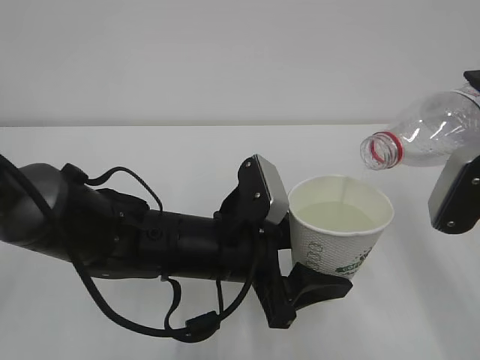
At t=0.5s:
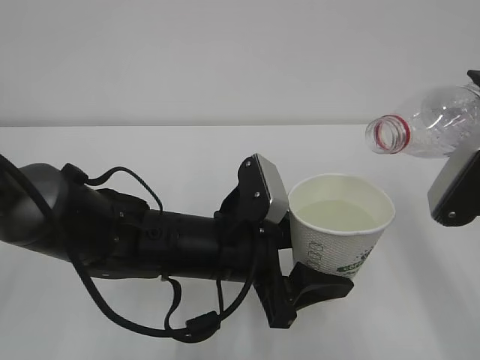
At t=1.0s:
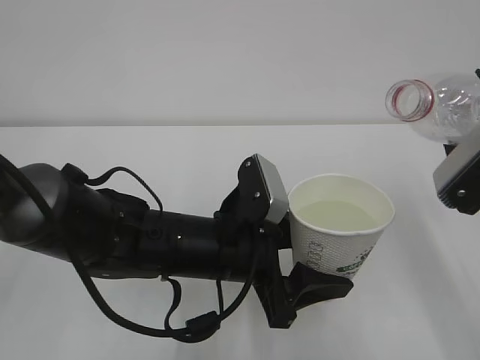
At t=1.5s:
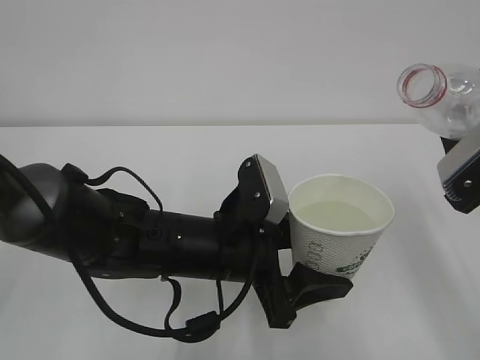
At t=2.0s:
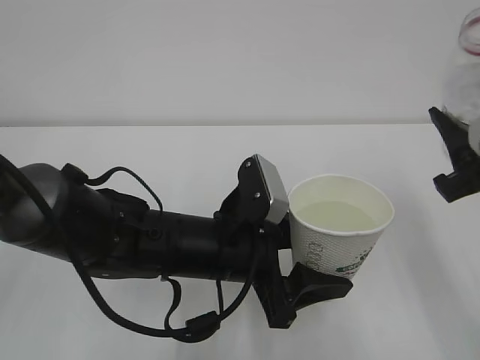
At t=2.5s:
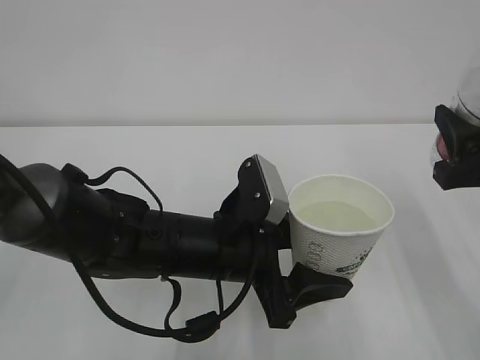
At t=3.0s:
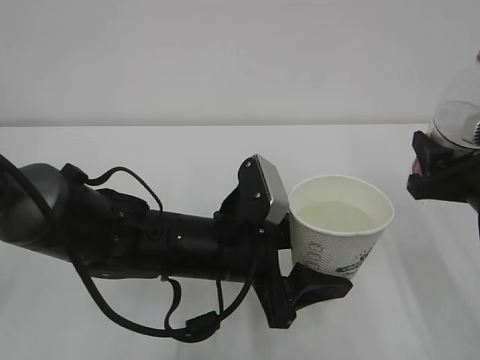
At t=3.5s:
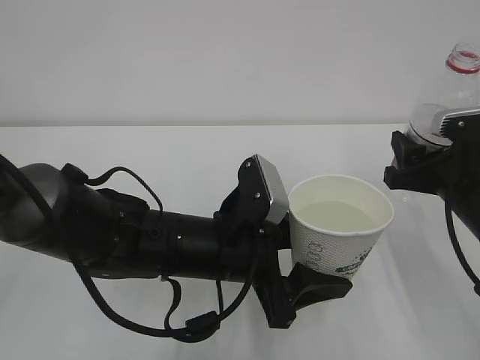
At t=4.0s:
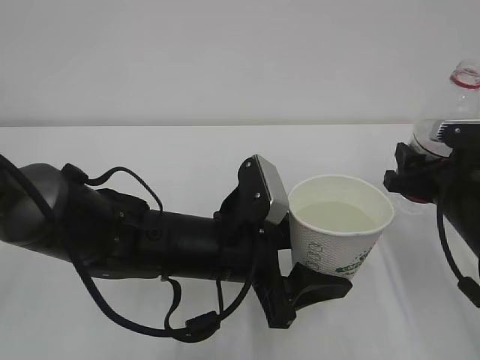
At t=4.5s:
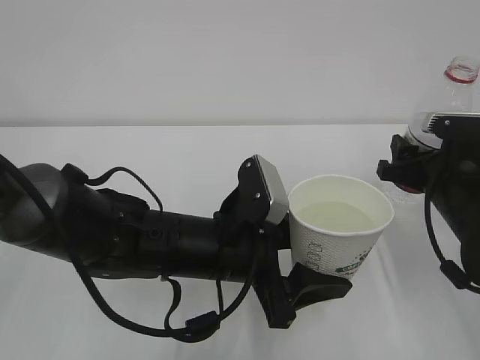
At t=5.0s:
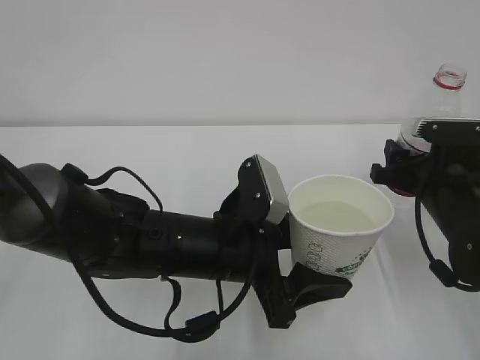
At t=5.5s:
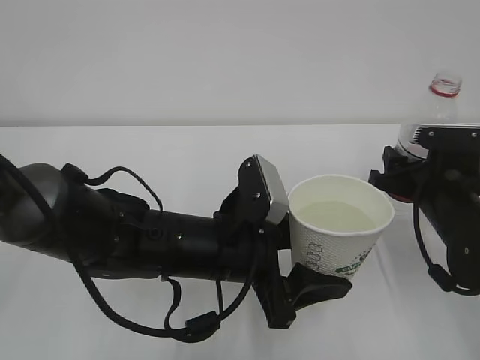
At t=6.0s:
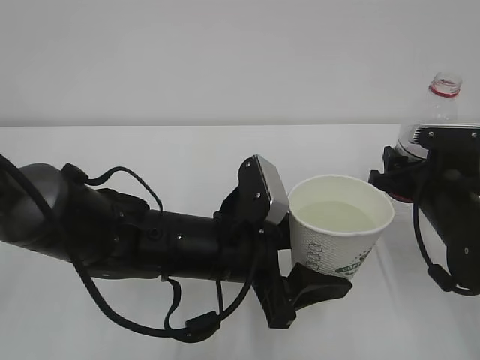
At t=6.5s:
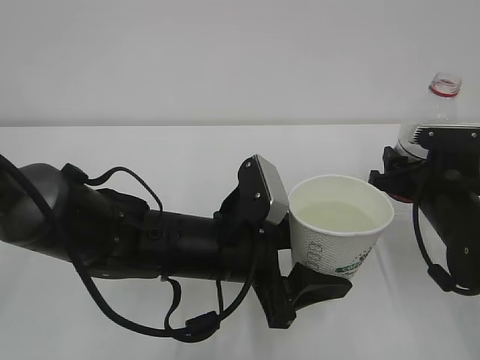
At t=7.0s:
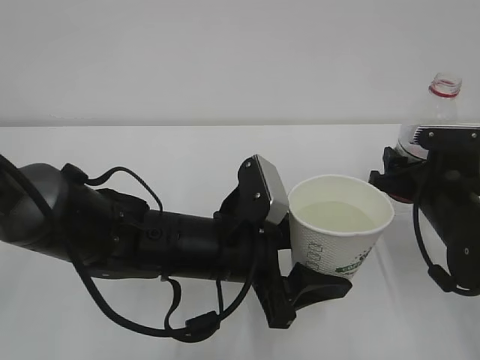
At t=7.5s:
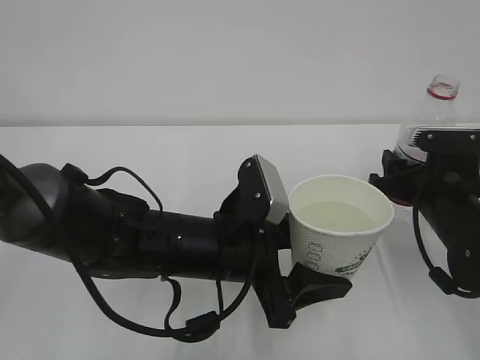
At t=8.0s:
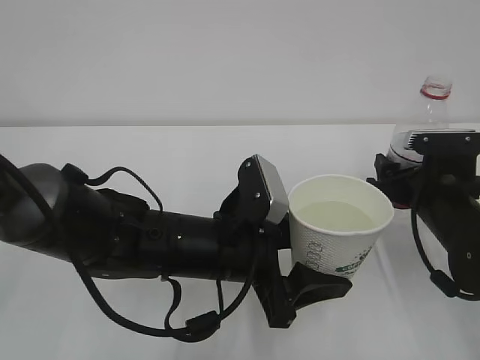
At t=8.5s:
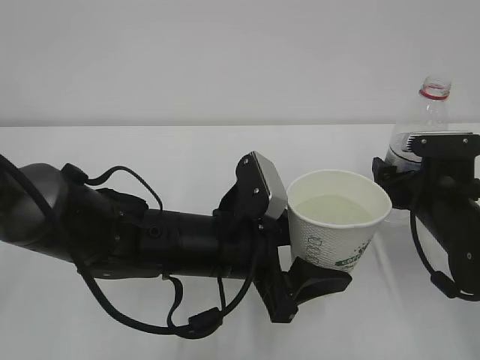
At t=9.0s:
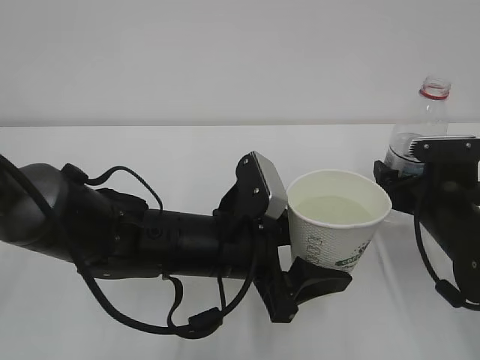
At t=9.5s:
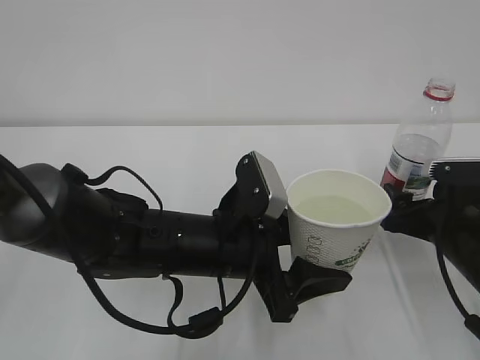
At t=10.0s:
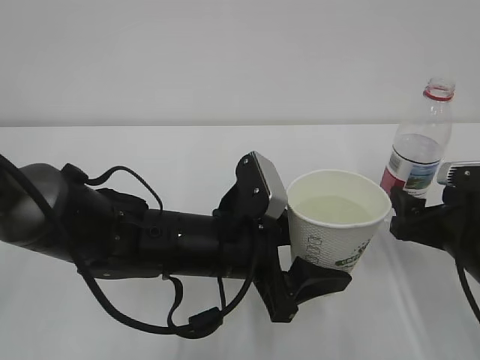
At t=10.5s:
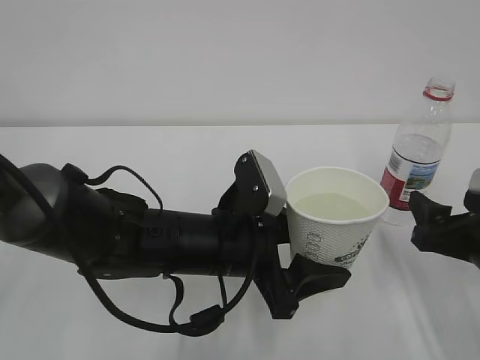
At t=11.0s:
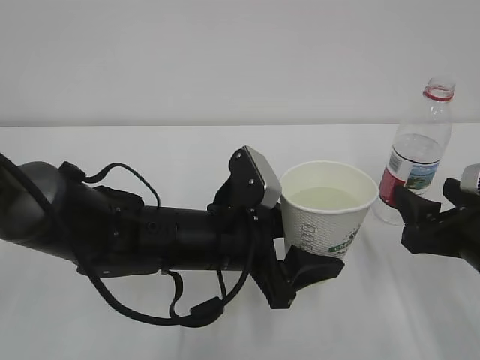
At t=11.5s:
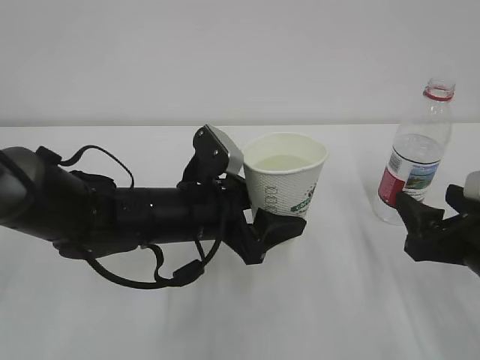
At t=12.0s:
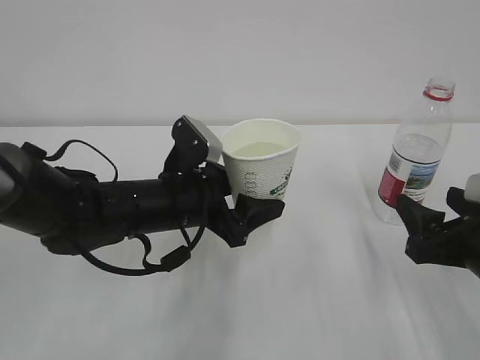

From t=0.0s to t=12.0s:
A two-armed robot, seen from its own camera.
From t=2.0s to t=4.0s: The right gripper goes roughly 10 cm downward and forward.
From t=4.0s to t=6.0s: There are only small adjustments of the grippers.
From t=6.0s to t=8.0s: The right gripper opens.
From t=8.0s to t=10.0s: The right gripper shifts about 5 cm backward.
From t=10.0s to t=12.0s: The left gripper heads forward and to the left, covering roughly 10 cm.

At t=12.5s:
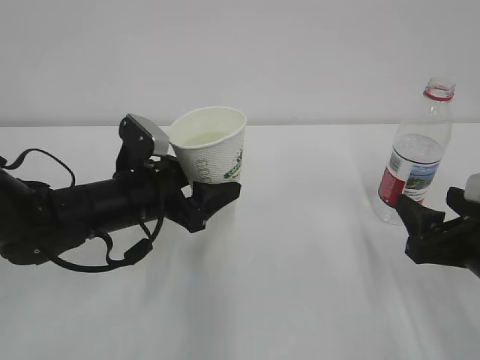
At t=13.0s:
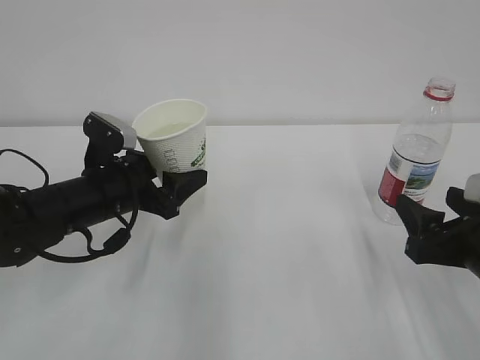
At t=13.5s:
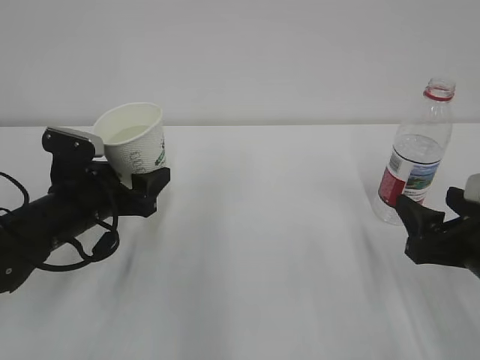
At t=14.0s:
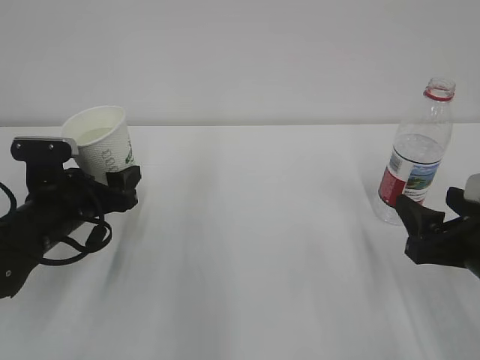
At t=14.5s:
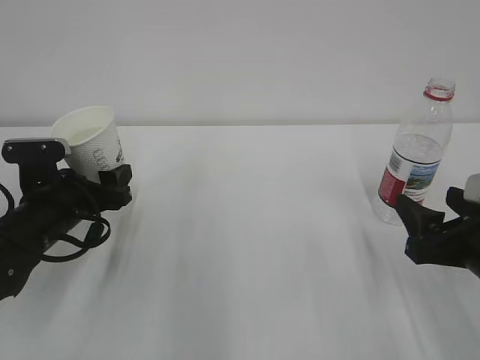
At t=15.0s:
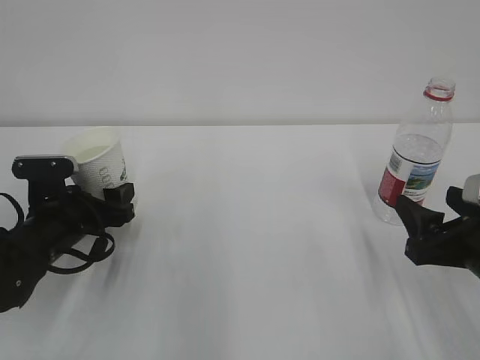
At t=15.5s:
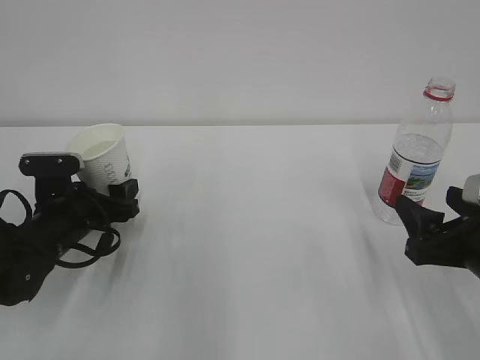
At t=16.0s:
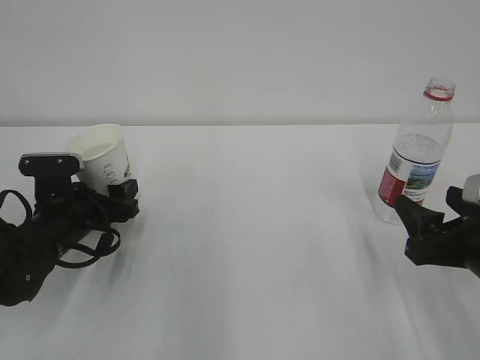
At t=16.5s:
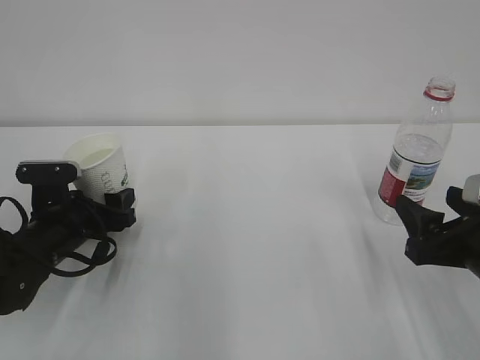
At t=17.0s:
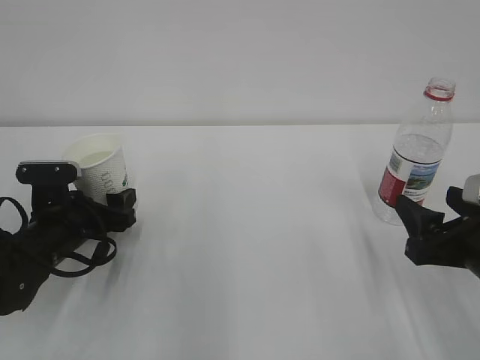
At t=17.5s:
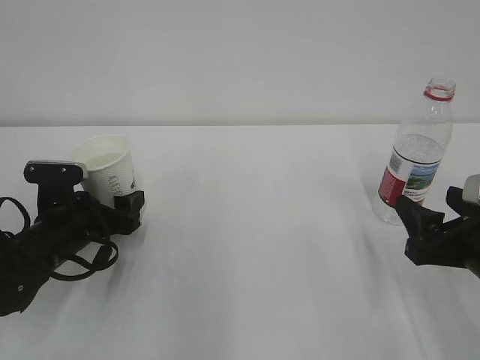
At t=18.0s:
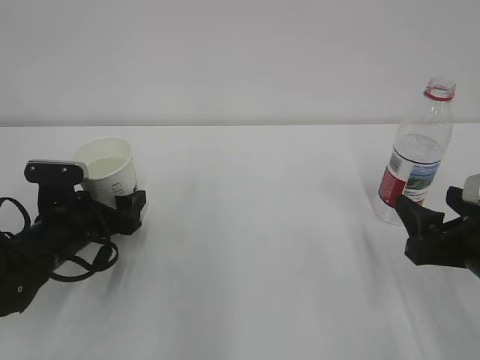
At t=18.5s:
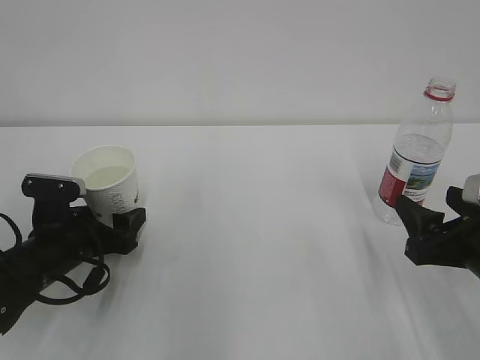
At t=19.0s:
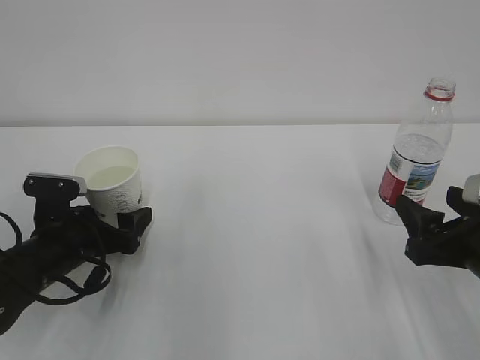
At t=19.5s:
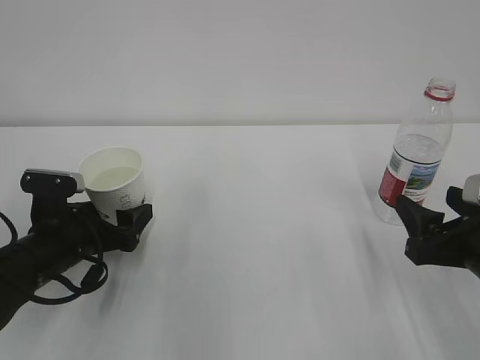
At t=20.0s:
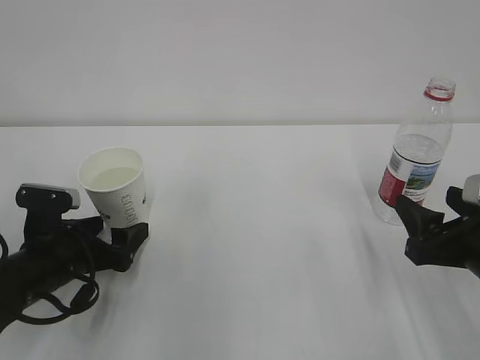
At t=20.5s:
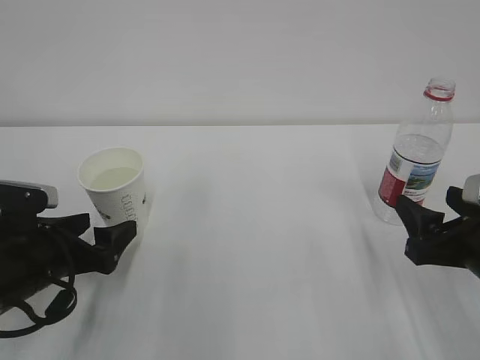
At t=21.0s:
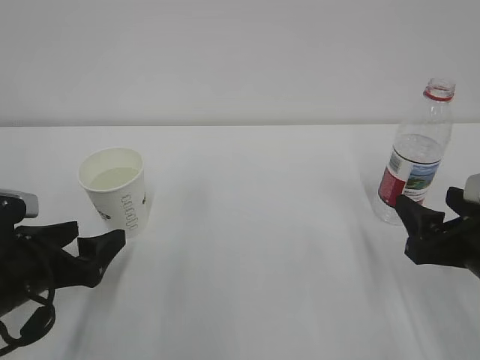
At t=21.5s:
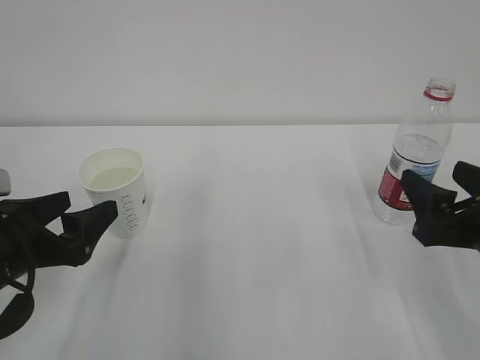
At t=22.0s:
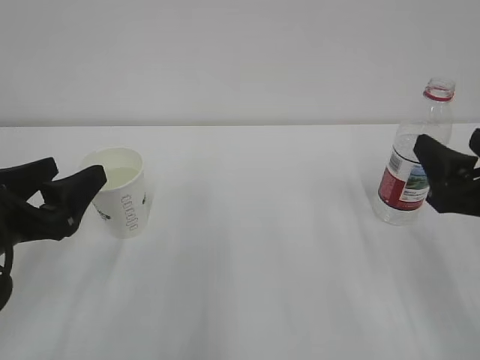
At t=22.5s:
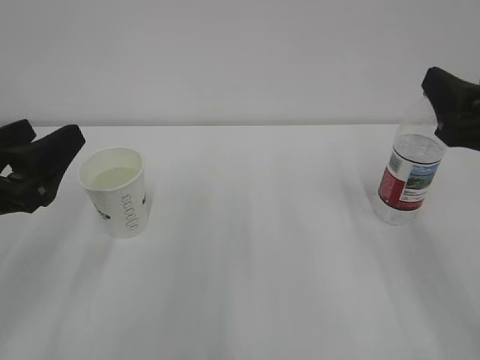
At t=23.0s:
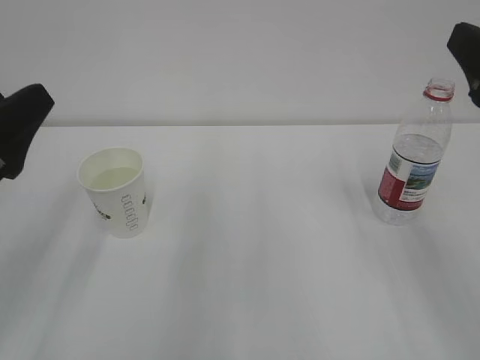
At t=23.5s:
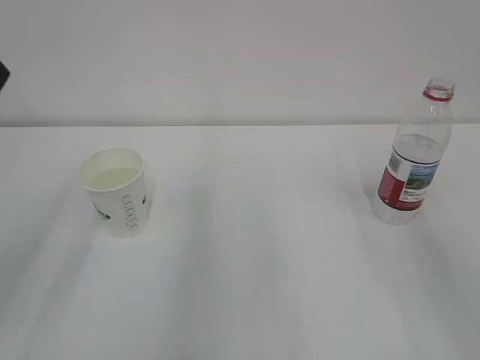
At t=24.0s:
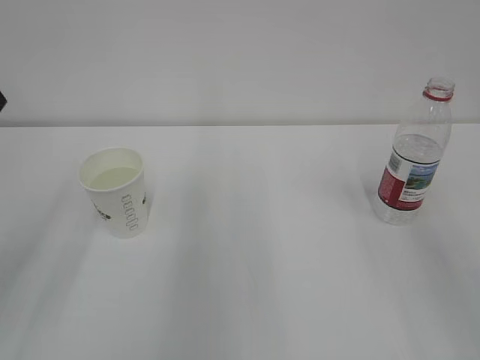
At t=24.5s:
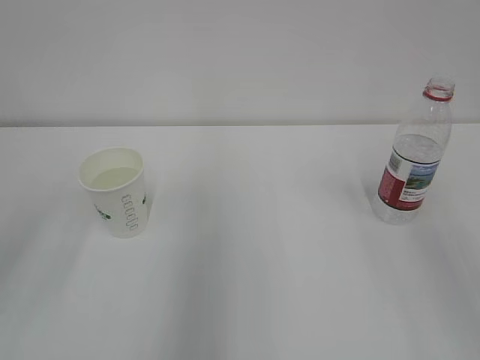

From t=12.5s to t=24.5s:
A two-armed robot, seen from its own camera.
From t=12.5s to t=14.5s: The left gripper heads to the left, covering roughly 10 cm.
From t=14.5s to t=16.5s: The grippers stay close to where they were, moving slightly.
From t=16.5s to t=18.5s: The left gripper opens.
From t=18.5s to t=20.5s: The left gripper shifts by about 5 cm.
From t=20.5s to t=22.5s: Both grippers move upward, about 10 cm.
From t=22.5s to t=24.5s: The left gripper shifts some 10 cm upward. The right gripper is displaced upward and backward by approximately 15 cm.
